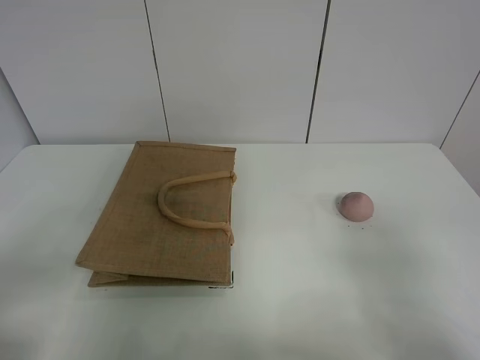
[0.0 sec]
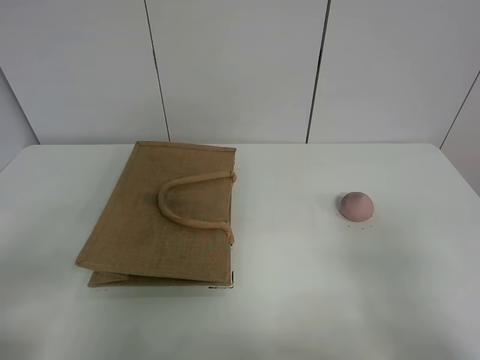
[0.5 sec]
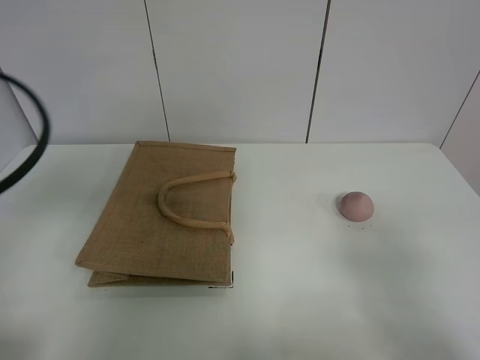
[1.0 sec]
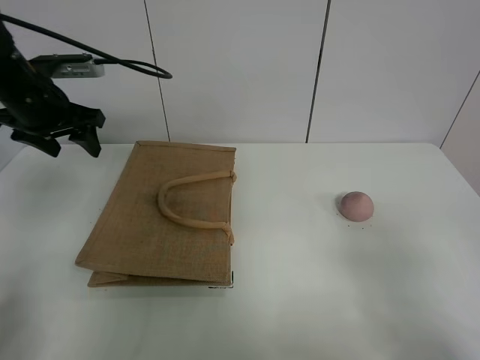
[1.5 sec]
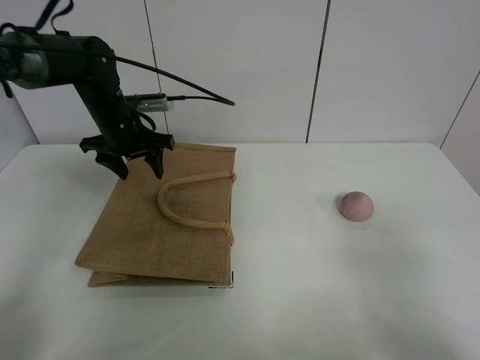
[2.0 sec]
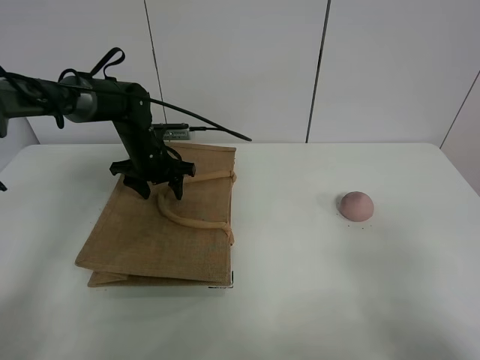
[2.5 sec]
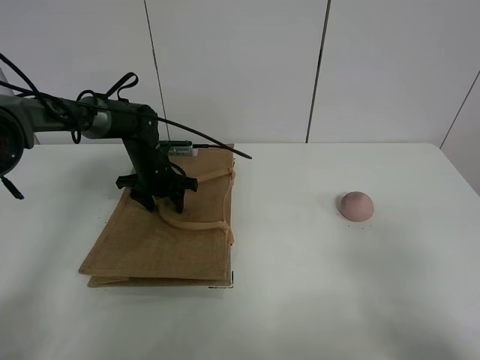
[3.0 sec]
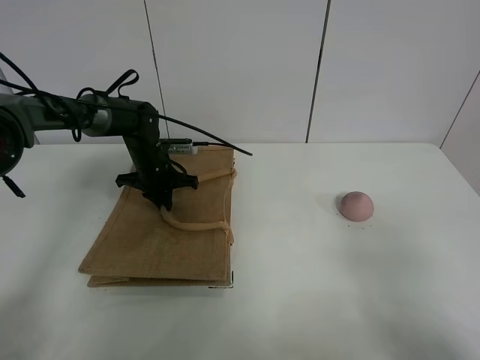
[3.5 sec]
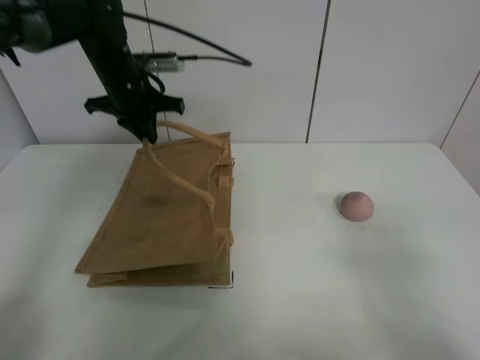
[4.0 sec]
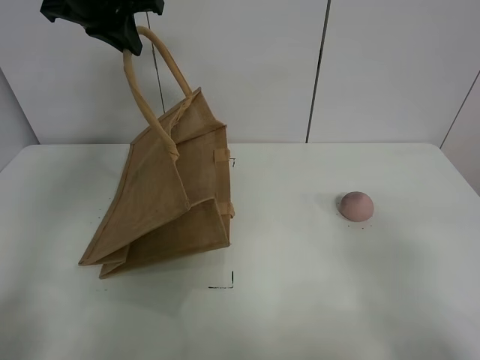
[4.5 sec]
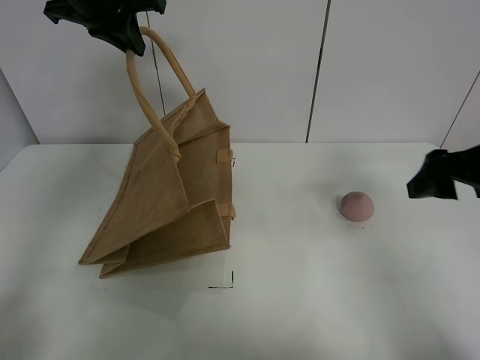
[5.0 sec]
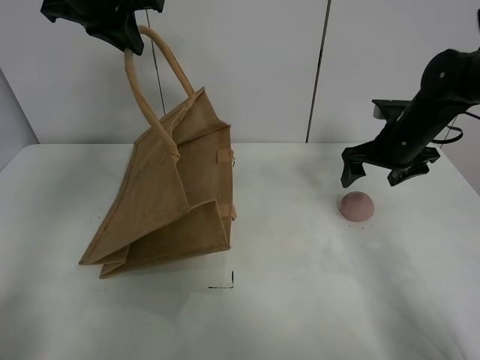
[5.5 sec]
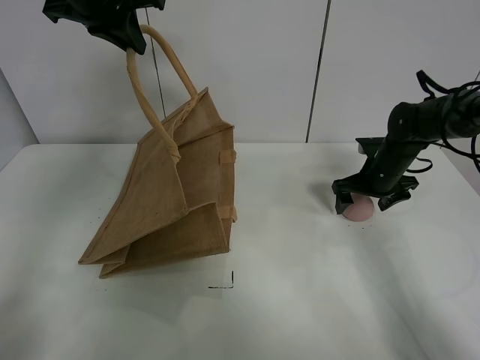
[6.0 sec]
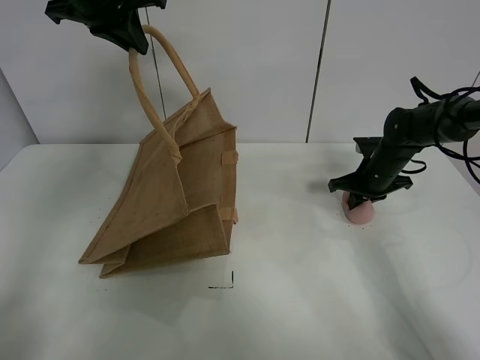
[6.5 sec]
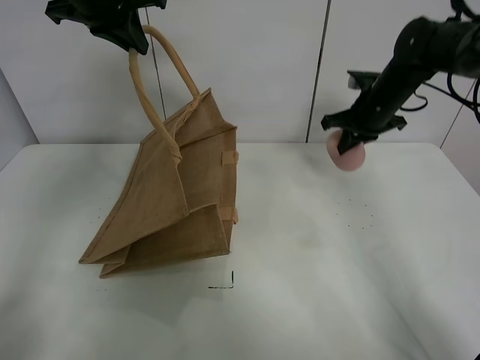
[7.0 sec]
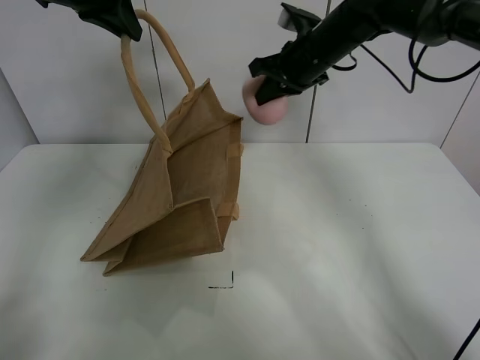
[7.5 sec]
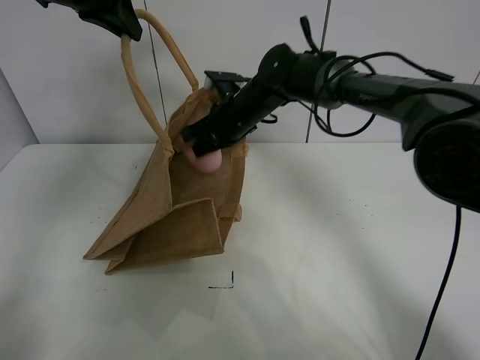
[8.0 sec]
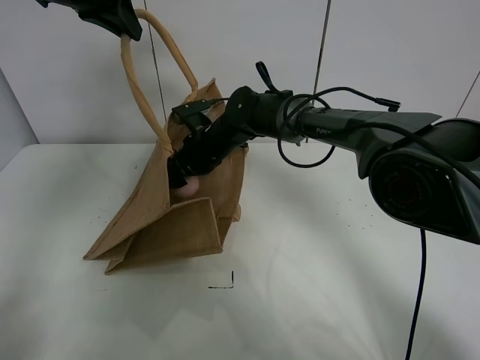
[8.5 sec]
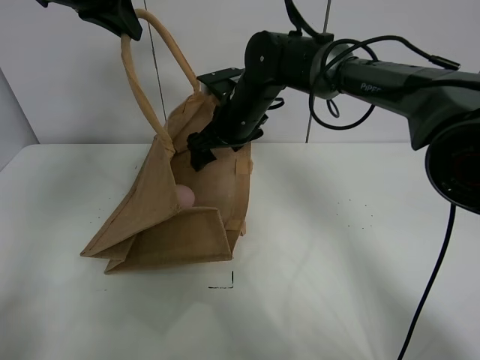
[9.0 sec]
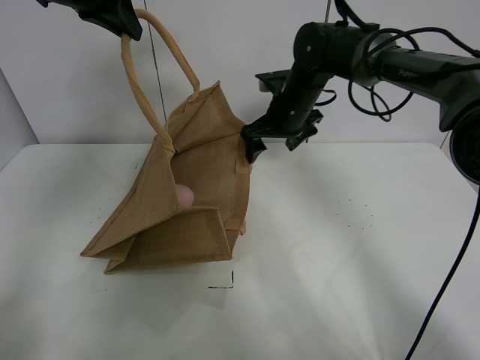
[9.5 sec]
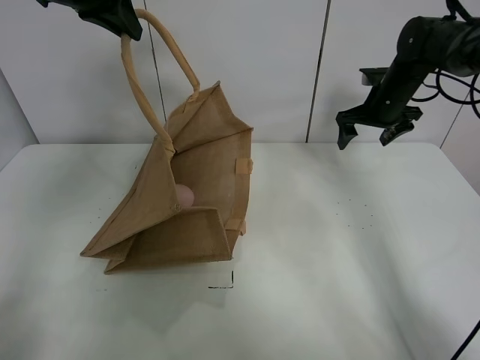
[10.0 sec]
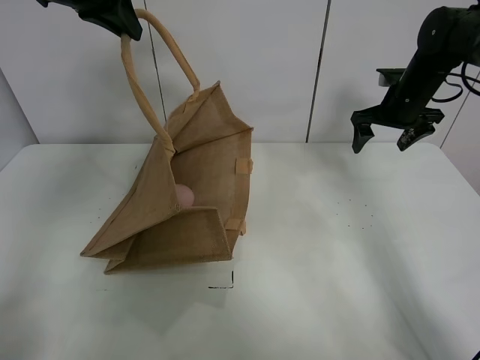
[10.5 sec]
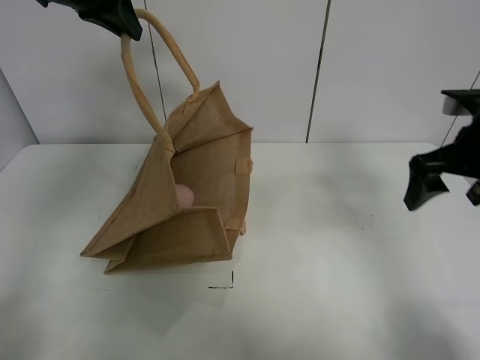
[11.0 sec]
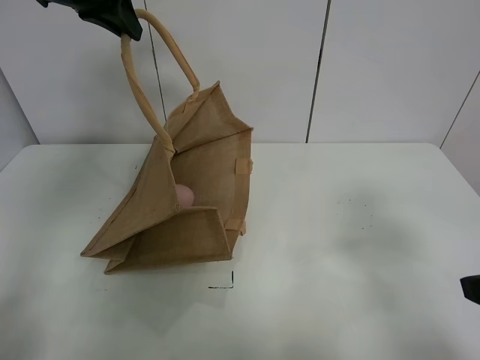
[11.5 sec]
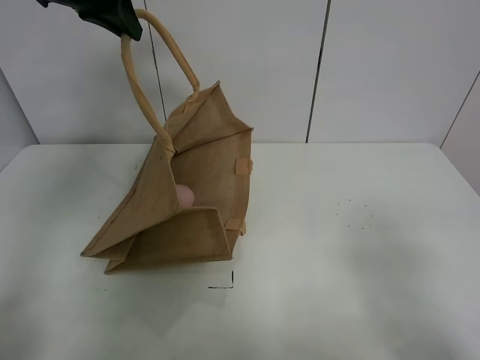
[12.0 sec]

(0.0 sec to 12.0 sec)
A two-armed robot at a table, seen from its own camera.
Task of the whole recording: open the brown linen bag and put the peach in the bag.
Step, 0.0 sec - 4.0 sec: Lift the handbag with left gripper.
Step, 4.5 sec - 6.5 sec: Grasp the peach with right gripper.
Step, 7.0 sec - 9.0 sec: Place the peach in the handbag with right gripper.
0.0 sec - 2.0 sec: The left gripper moves forward, some 40 cm.
2.0 sec - 4.0 sec: The left gripper goes approximately 10 cm upward, and closes its fingers.
4.0 sec - 6.0 sec: The left gripper is displaced upward by roughly 10 cm. Meanwhile the right gripper is displaced forward by roughly 40 cm.
6.0 sec - 8.0 sec: The right gripper is displaced to the left by some 25 cm, and closes.
8.0 sec - 10.0 sec: The right gripper goes roughly 30 cm to the right, and opens up.
10.0 sec - 12.0 sec: The right gripper shifts some 50 cm backward.

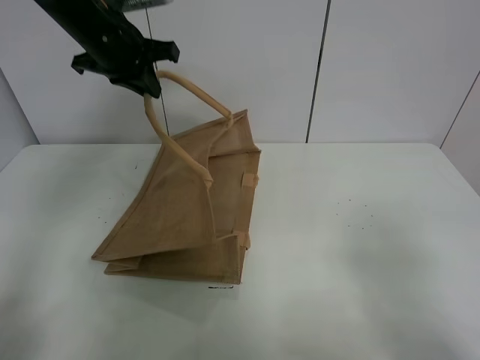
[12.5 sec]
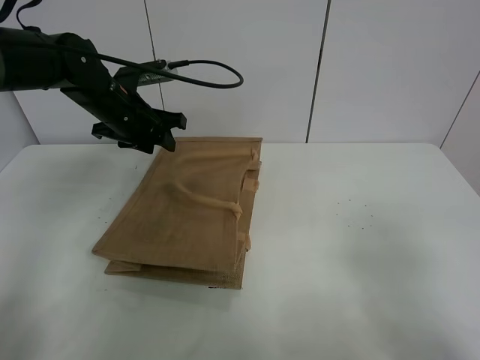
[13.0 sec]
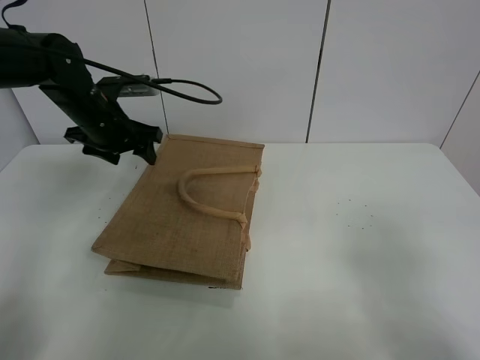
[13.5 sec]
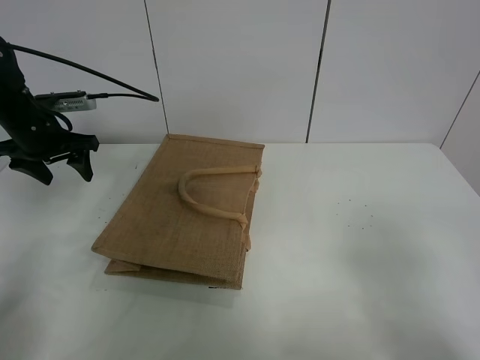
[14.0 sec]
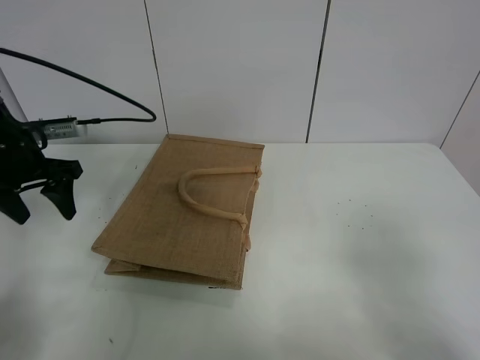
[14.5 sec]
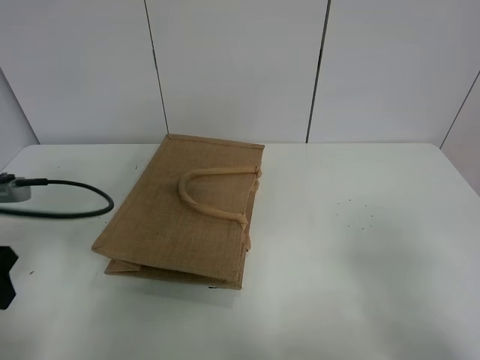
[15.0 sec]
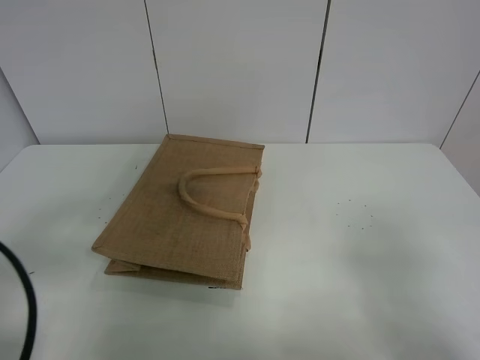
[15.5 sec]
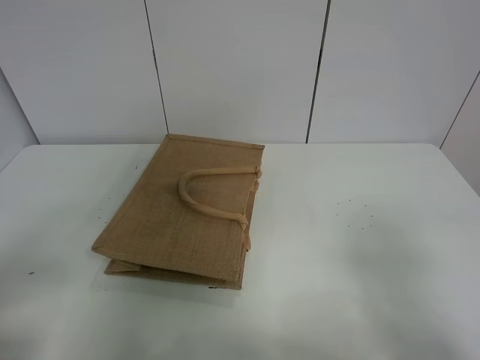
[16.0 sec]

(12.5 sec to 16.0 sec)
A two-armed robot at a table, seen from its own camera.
Task of the whole recording: open the brown linen bag and put the peach in the bag.
12.5 sec - 14.5 sec: The left gripper moves to the left, downward and backward, some 20 cm, and opens up.
14.5 sec - 16.0 sec: The left gripper is displaced backward by approximately 30 cm.
